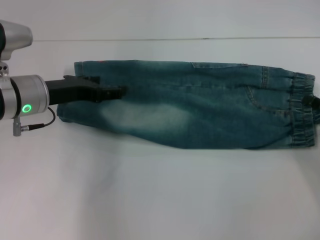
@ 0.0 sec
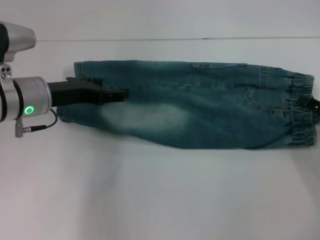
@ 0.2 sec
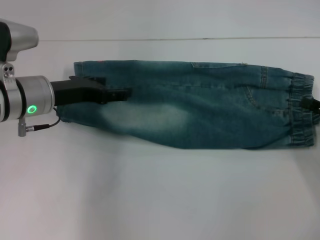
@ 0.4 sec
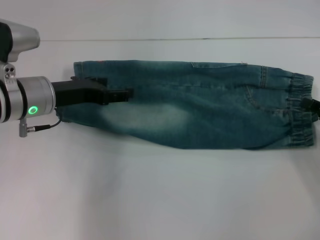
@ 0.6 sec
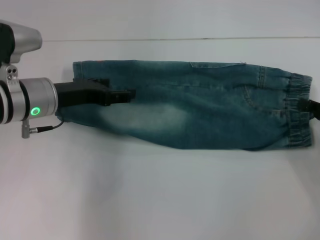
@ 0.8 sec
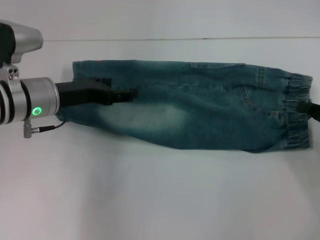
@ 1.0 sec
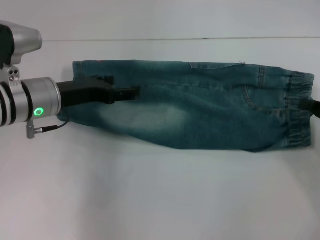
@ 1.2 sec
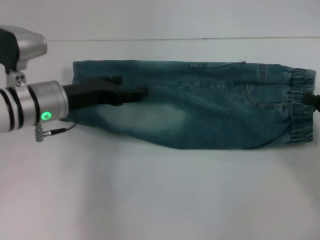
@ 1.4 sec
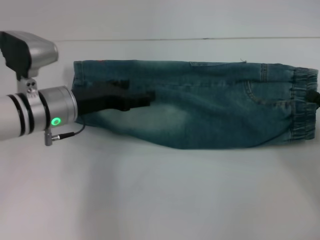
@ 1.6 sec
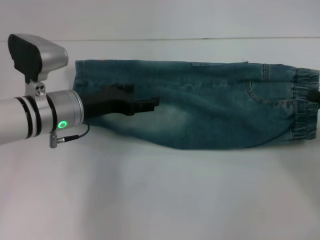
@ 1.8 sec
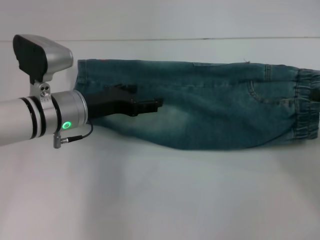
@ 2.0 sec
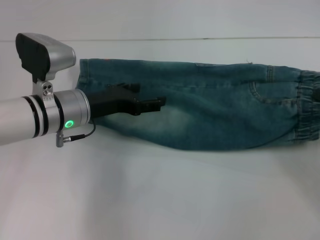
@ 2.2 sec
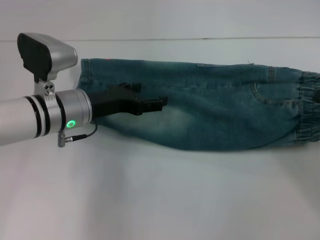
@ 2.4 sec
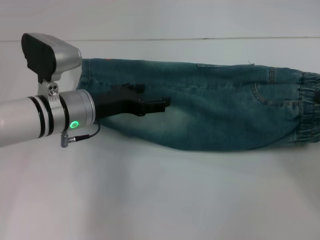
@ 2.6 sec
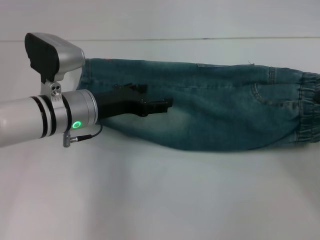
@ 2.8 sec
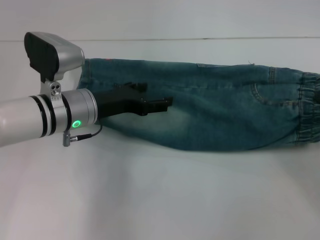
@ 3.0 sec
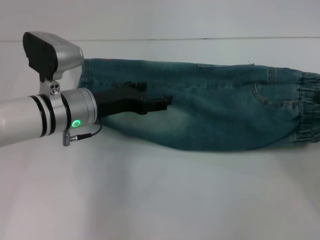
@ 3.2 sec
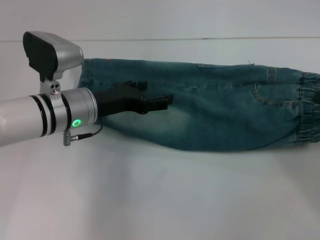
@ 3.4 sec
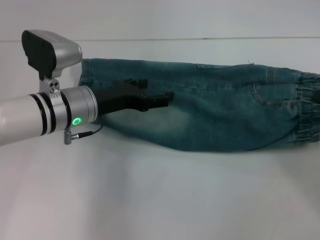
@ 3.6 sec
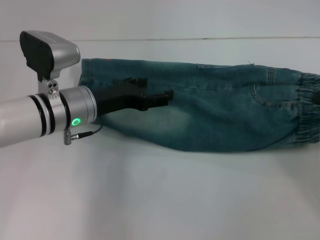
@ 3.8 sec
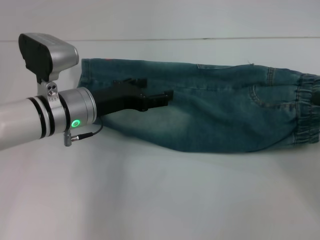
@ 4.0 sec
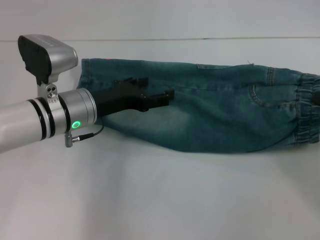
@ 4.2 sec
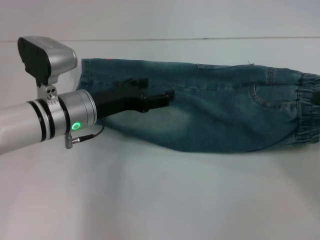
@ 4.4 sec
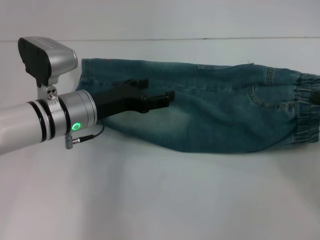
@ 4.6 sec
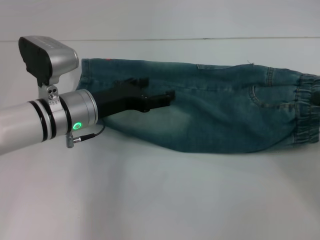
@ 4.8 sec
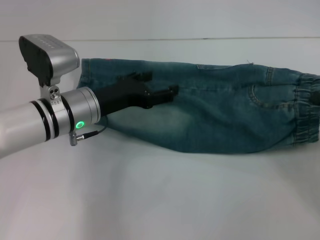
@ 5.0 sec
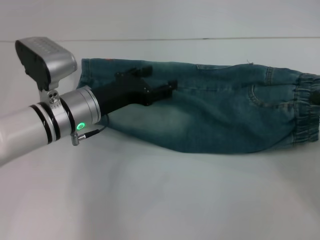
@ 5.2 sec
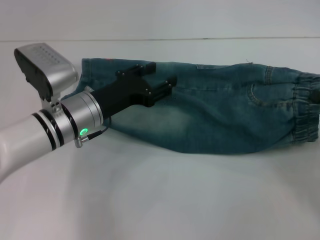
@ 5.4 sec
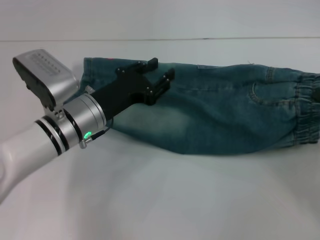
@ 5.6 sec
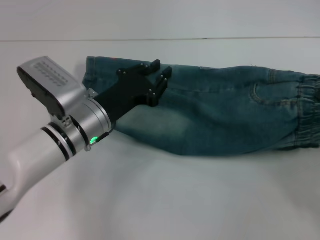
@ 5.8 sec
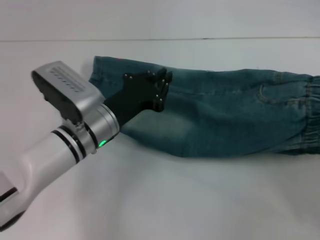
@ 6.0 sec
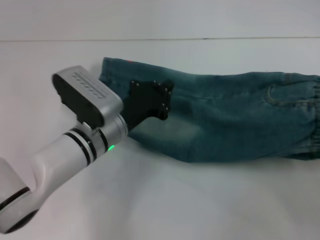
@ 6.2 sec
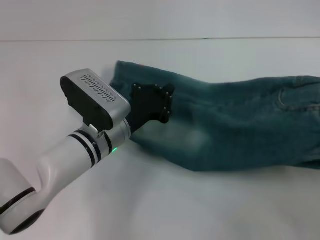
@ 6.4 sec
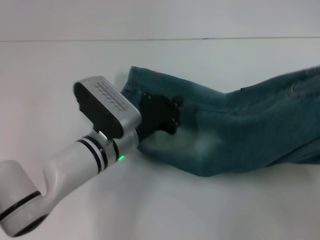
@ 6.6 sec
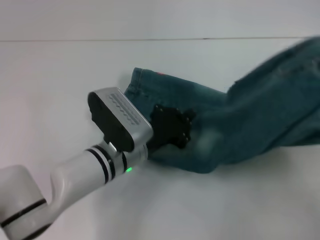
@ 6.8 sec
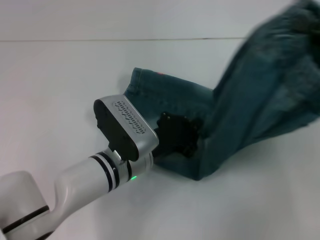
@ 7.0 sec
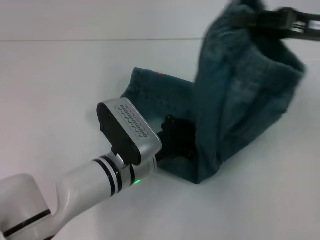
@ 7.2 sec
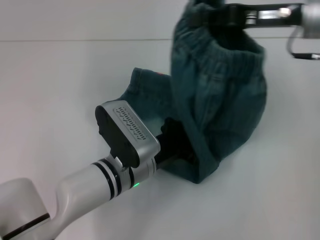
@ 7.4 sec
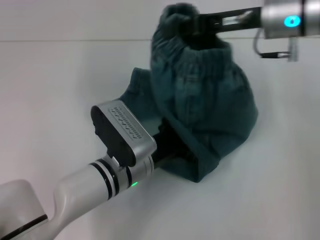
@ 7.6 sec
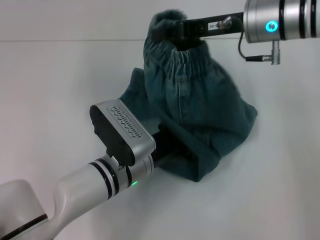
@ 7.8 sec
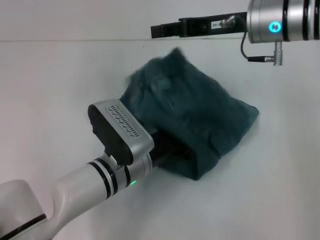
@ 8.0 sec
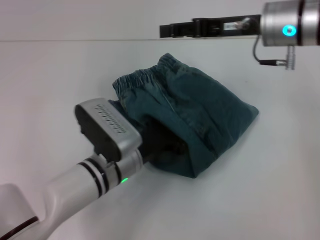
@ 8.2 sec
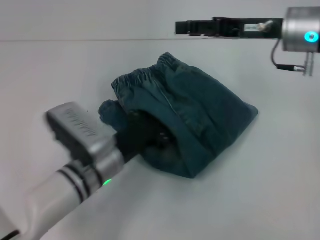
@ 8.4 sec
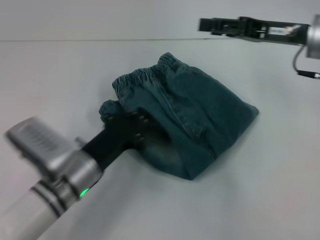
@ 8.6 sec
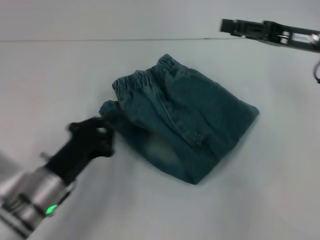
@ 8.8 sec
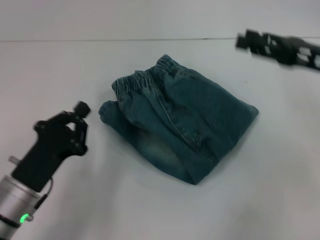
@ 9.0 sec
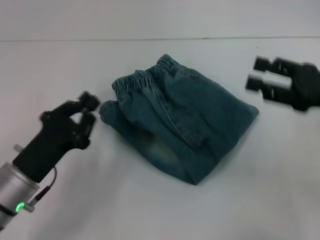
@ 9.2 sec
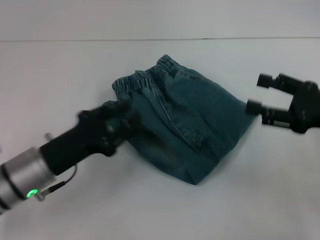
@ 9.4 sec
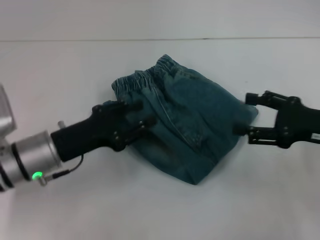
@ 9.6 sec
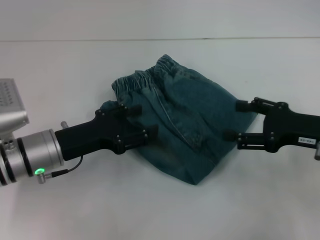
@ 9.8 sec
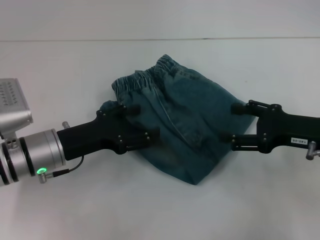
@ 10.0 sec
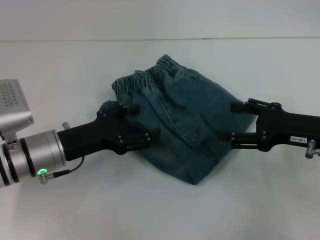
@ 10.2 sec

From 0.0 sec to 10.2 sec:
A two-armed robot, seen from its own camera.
Step, from 0.4 sec to 8.2 sec: Press the middle of the pants with your left hand.
Step, from 8.4 sec to 9.0 sec: Fold to the left with your right hand.
From 0.0 sec to 1.4 sec: The right gripper closes up.
From 1.4 sec to 4.4 sec: The grippers make only small movements.
From 4.4 sec to 5.8 sec: The left gripper closes its fingers.
From 5.8 sec to 7.2 sec: The right gripper heads upward, forward and to the left, covering about 20 cm. The left gripper goes roughly 5 cm to the right, and closes up.
From 7.2 sec to 8.8 sec: The right gripper goes to the left and returns, approximately 10 cm each way, and opens. Meanwhile the left gripper moves to the left and backward, some 15 cm.
From 8.8 sec to 10.2 sec: The right gripper moves backward and downward, some 10 cm. Meanwhile the left gripper is displaced forward by roughly 5 cm, and opens up.

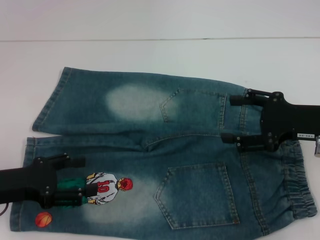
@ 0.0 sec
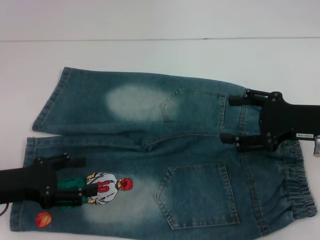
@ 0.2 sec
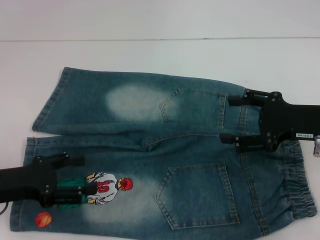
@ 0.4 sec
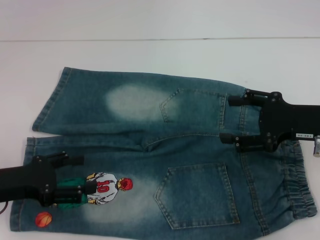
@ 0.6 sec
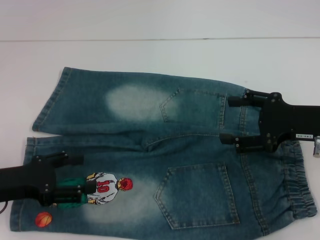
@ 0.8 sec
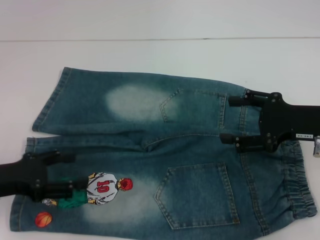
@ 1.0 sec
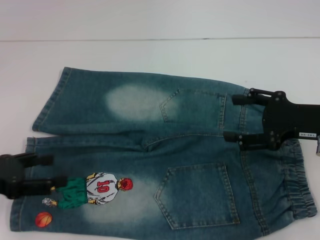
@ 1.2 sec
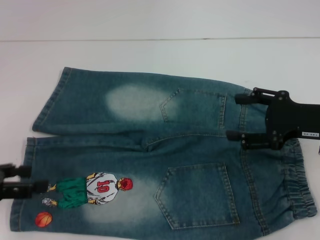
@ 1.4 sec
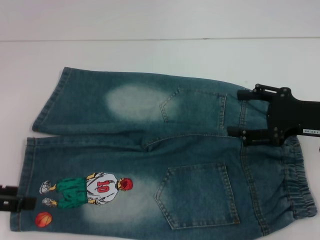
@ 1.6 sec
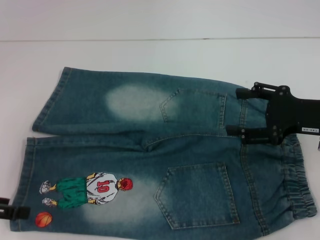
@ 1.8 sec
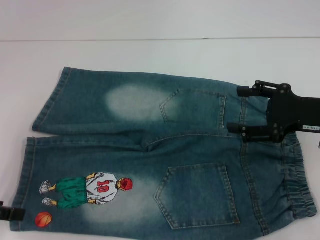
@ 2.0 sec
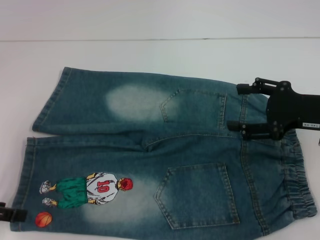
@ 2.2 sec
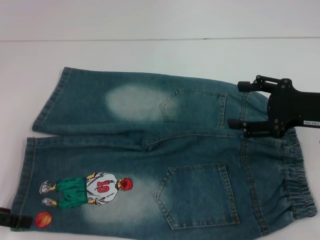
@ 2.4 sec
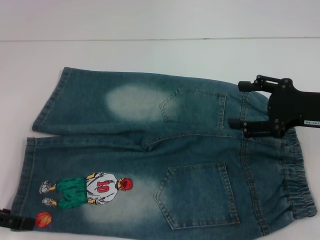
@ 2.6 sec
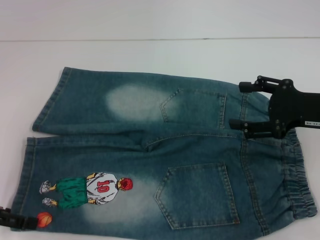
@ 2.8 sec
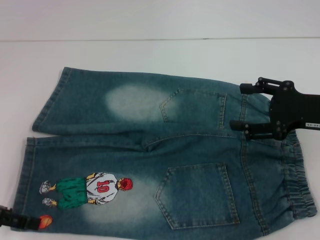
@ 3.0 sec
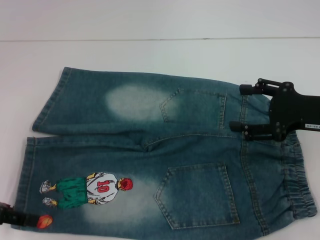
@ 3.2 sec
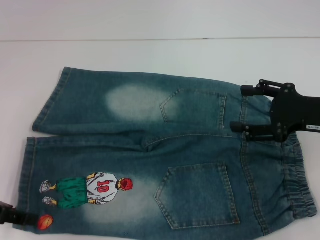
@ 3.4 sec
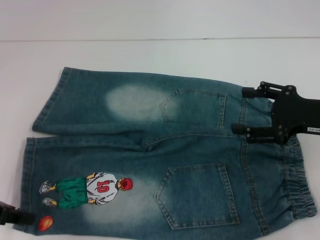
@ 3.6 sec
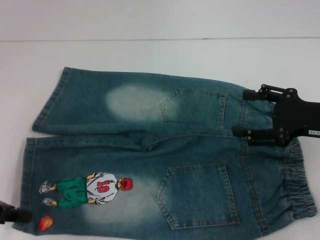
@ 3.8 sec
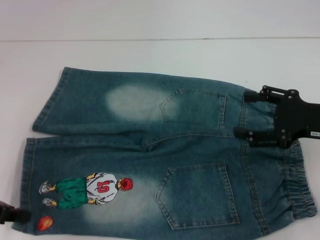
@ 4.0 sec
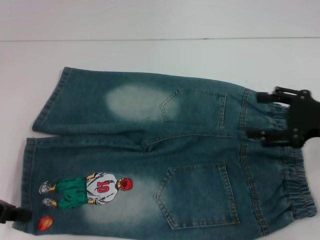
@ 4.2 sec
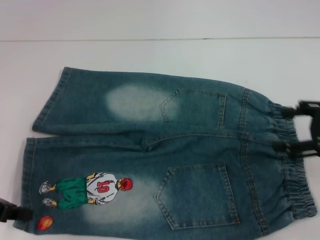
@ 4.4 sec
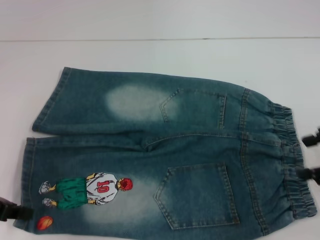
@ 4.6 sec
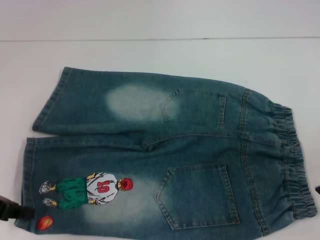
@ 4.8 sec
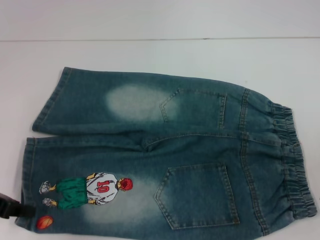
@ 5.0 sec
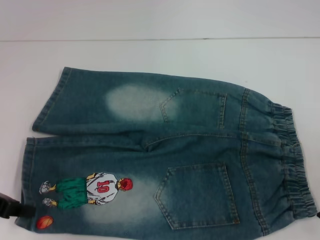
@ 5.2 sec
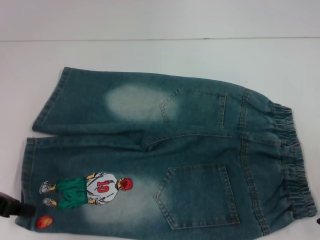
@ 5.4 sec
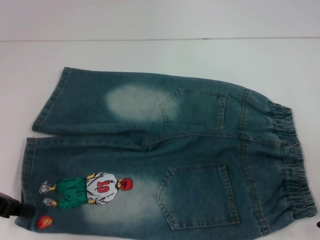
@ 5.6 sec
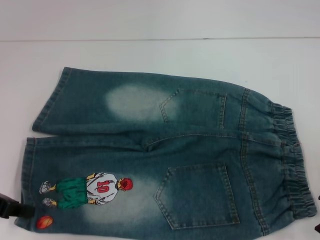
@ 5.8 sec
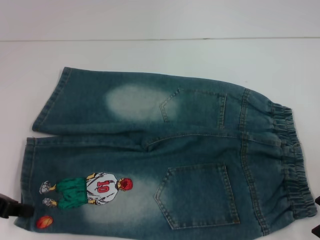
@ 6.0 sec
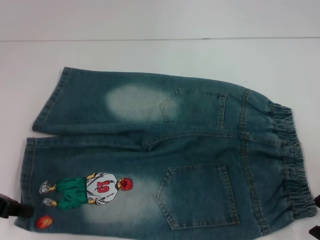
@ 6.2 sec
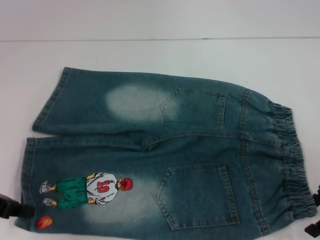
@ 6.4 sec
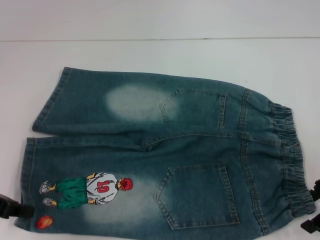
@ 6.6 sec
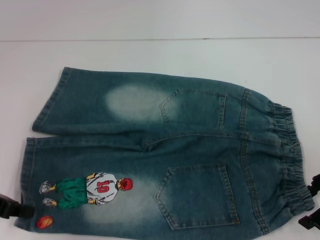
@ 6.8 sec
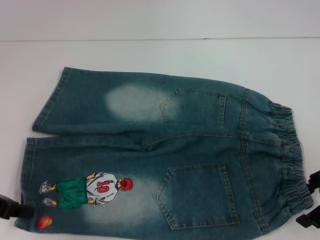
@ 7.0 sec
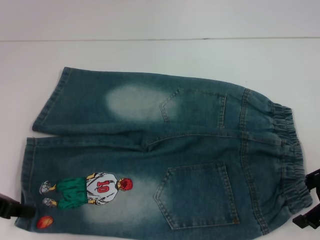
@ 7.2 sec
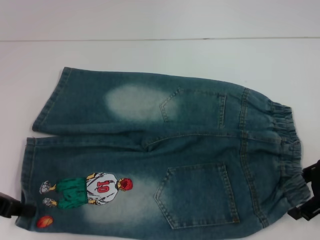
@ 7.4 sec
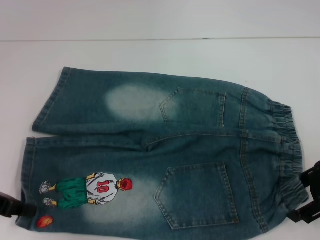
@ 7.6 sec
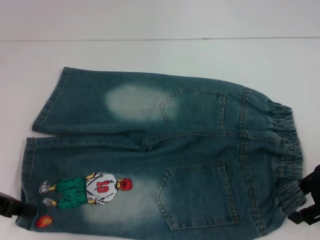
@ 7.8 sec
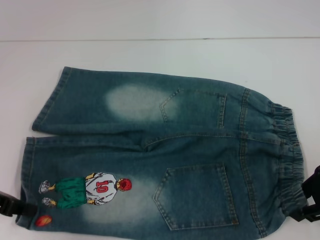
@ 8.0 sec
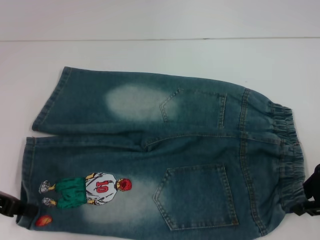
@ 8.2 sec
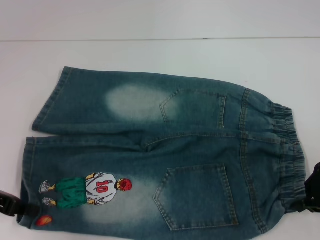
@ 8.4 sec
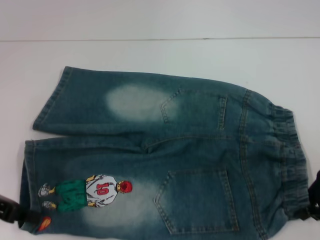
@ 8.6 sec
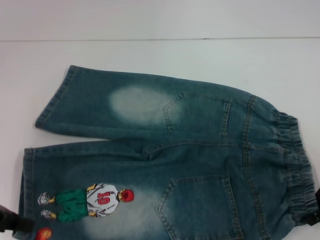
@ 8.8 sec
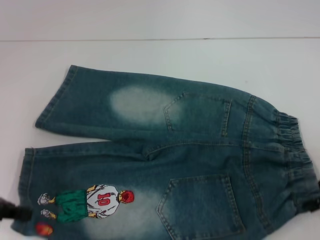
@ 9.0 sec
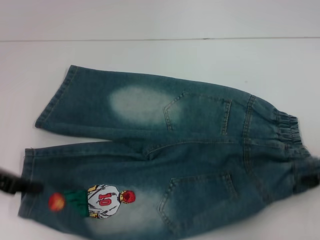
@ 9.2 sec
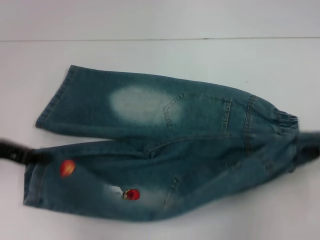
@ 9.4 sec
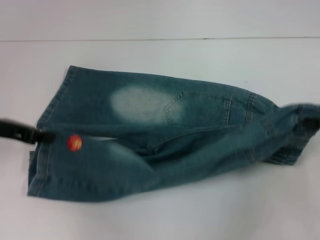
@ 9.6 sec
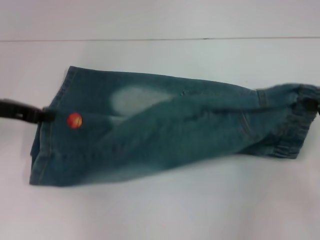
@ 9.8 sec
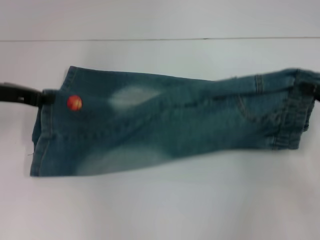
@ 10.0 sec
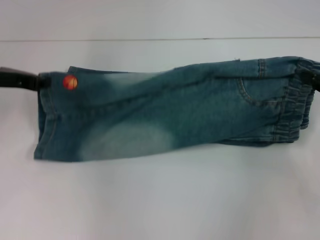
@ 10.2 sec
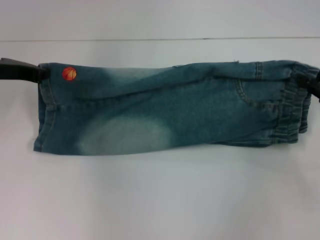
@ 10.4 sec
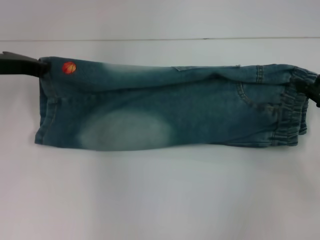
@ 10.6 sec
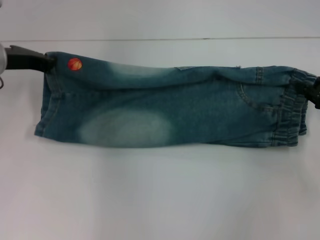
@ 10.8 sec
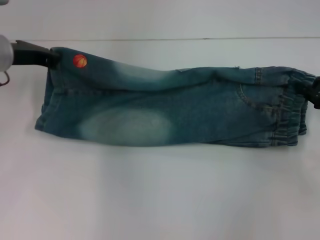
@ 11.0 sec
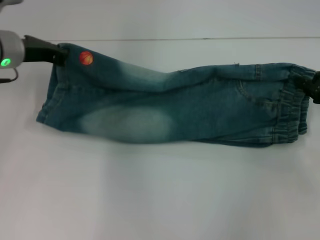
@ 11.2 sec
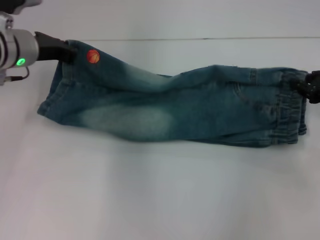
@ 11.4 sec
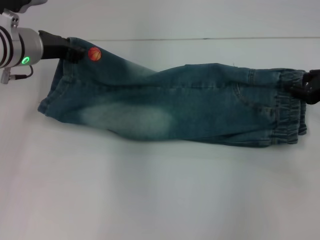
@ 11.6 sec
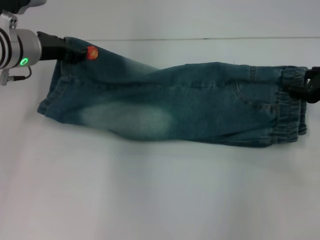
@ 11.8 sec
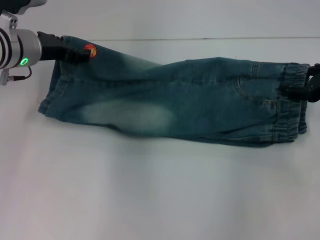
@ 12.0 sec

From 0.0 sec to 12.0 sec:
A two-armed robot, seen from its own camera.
Step, from 0.0 sec to 4.4 sec: Grab the lower left pant leg with your left hand.
Step, from 4.6 sec to 8.2 sec: Hold the lower right waistband with your right hand.
From 0.0 sec to 1.6 sec: The left gripper is displaced to the left and upward by some 10 cm.
From 1.6 sec to 3.0 sec: There are only small adjustments of the grippers.
From 3.0 sec to 4.4 sec: The left gripper closes, while the right gripper moves roughly 5 cm.
From 6.0 sec to 7.6 sec: The grippers stay close to where they were, moving slightly.
From 7.6 sec to 9.0 sec: The right gripper closes up.
From 9.0 sec to 10.4 sec: The right gripper shifts roughly 5 cm forward; the left gripper moves forward, approximately 15 cm.
From 10.4 sec to 12.0 sec: The right gripper opens its fingers; the left gripper shifts about 5 cm to the right, and opens.
